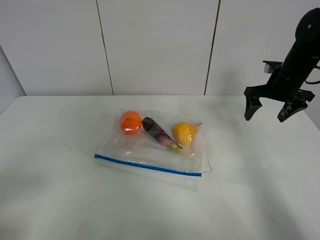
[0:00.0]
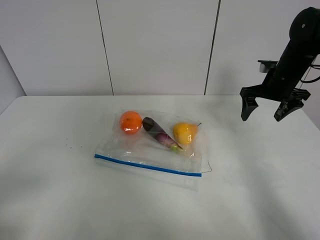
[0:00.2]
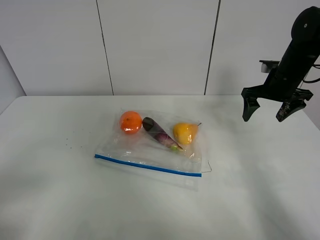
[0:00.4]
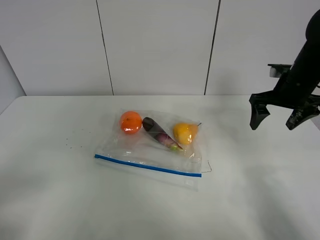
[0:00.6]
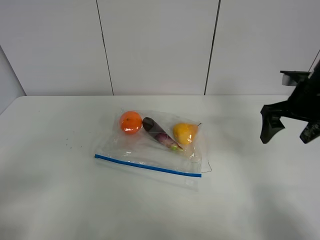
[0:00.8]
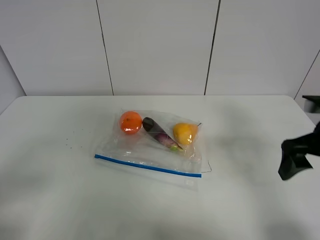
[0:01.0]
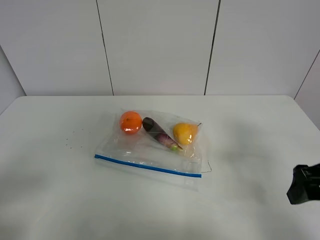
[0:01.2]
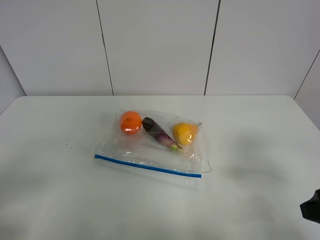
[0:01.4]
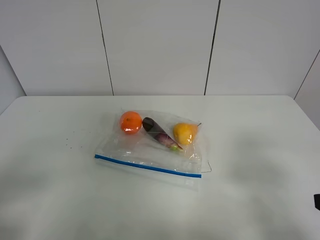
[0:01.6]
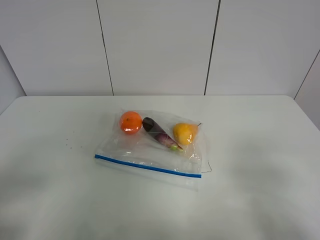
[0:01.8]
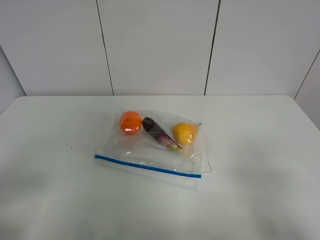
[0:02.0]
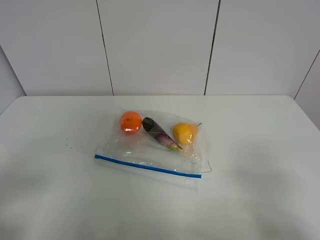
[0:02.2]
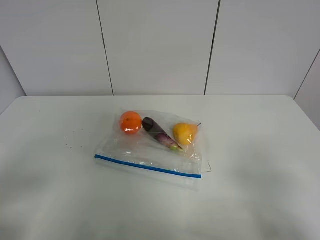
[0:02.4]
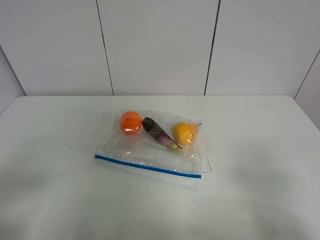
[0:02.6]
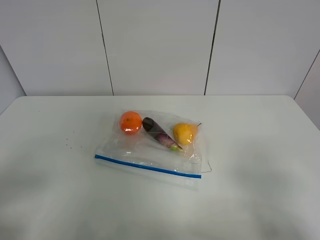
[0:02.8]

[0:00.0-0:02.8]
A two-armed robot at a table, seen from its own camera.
0:00.0 to 0:01.4: The right gripper moves backward, about 30 cm.
0:01.4 to 0:02.8: The right gripper is displaced backward by about 10 cm.

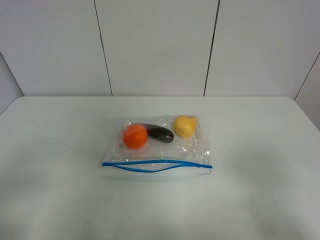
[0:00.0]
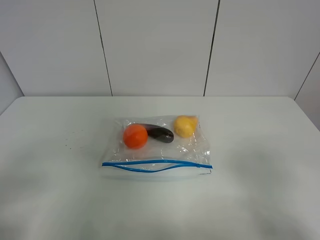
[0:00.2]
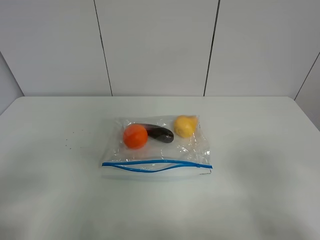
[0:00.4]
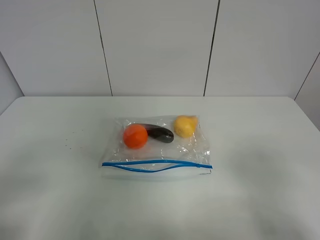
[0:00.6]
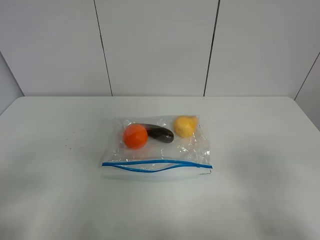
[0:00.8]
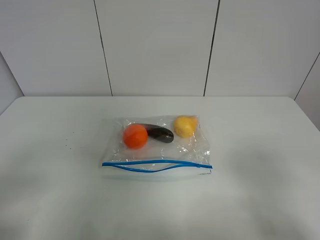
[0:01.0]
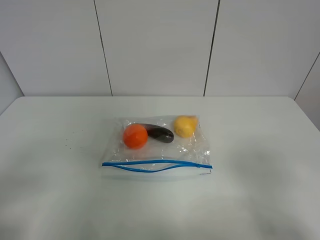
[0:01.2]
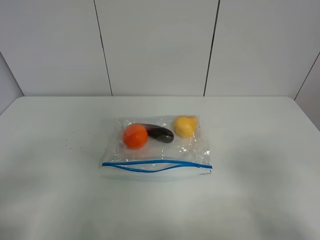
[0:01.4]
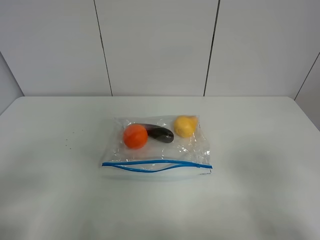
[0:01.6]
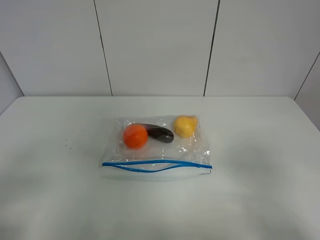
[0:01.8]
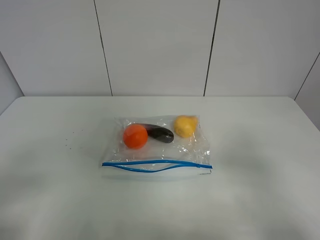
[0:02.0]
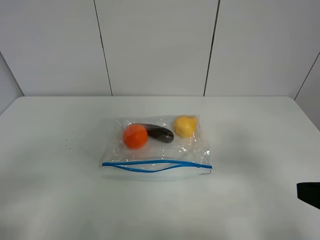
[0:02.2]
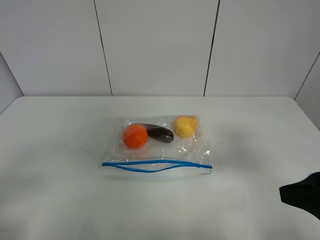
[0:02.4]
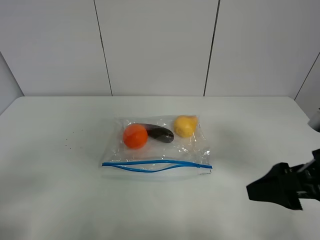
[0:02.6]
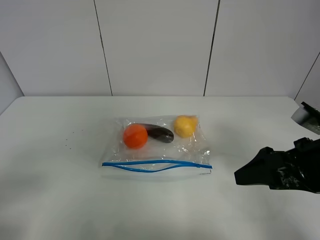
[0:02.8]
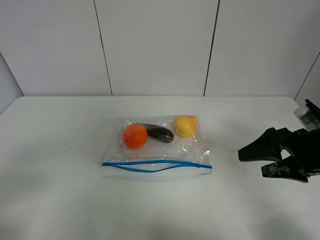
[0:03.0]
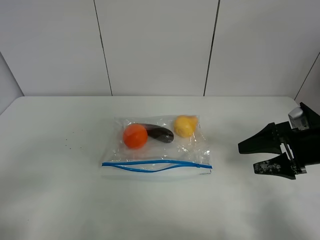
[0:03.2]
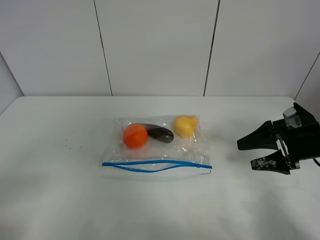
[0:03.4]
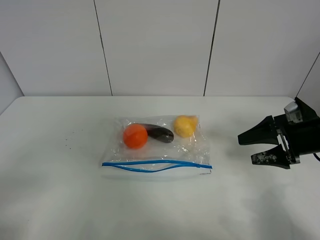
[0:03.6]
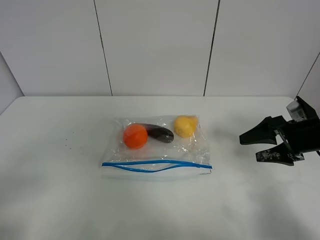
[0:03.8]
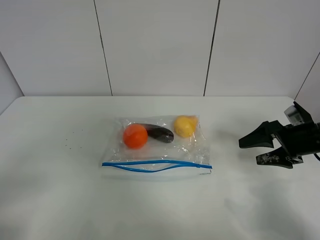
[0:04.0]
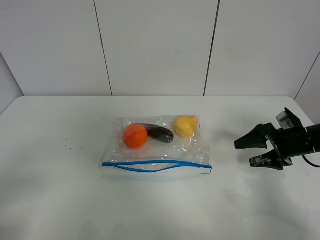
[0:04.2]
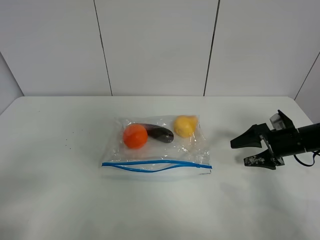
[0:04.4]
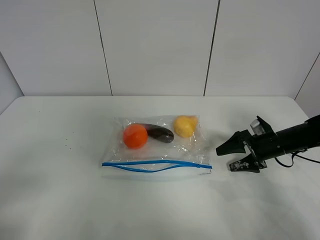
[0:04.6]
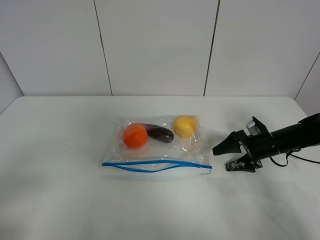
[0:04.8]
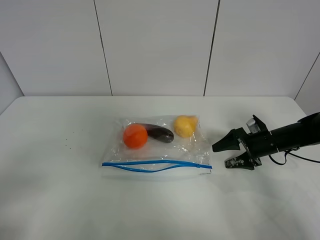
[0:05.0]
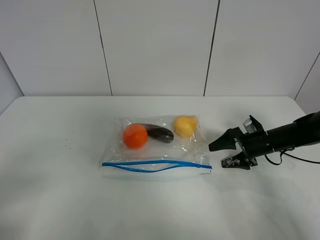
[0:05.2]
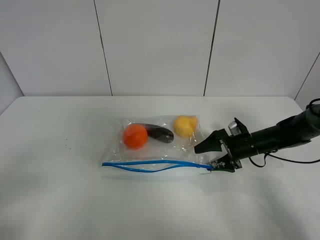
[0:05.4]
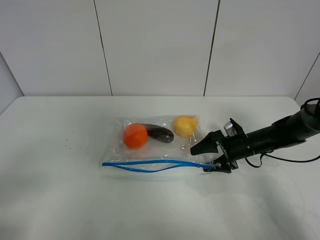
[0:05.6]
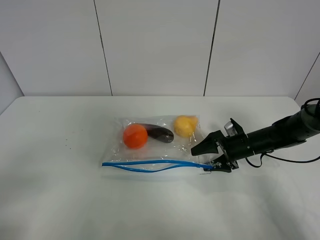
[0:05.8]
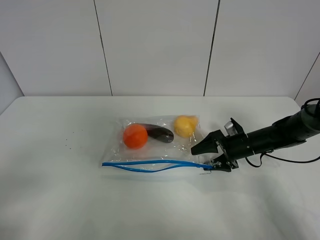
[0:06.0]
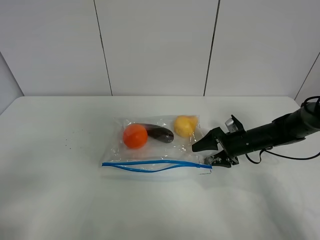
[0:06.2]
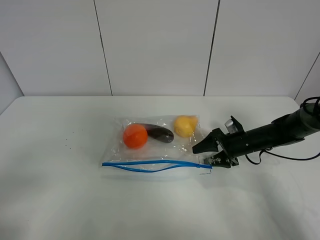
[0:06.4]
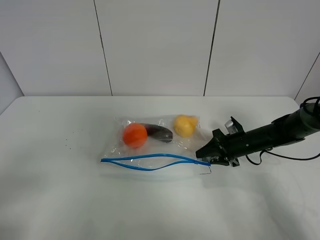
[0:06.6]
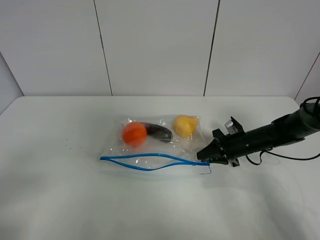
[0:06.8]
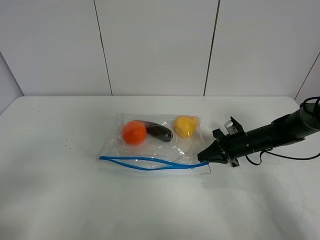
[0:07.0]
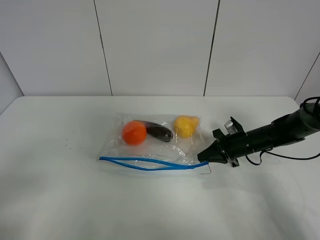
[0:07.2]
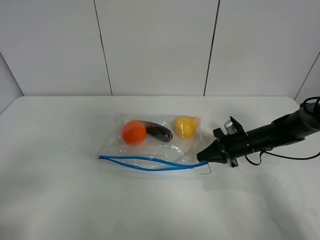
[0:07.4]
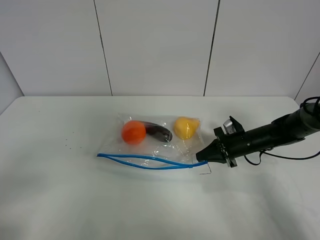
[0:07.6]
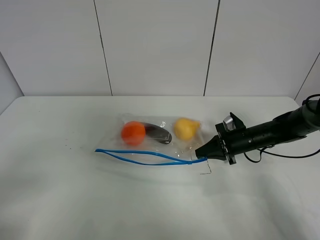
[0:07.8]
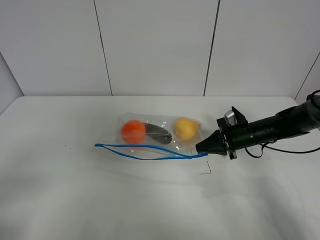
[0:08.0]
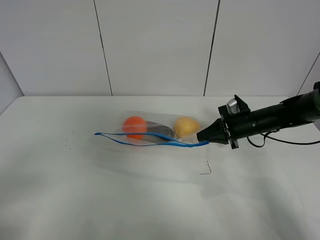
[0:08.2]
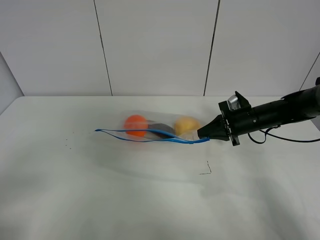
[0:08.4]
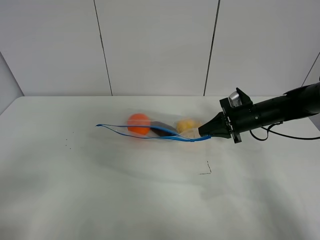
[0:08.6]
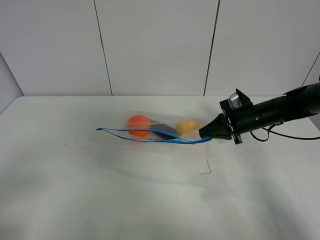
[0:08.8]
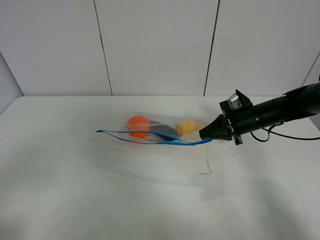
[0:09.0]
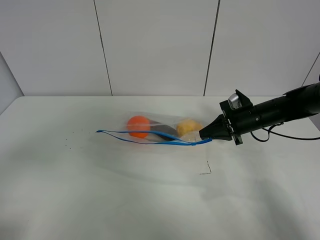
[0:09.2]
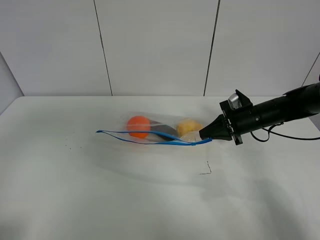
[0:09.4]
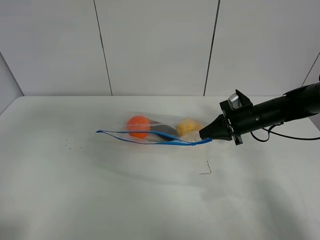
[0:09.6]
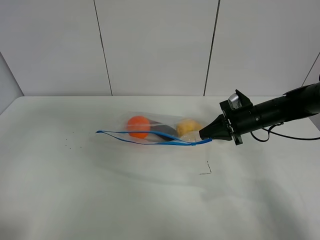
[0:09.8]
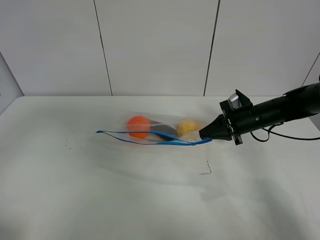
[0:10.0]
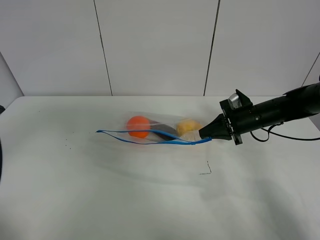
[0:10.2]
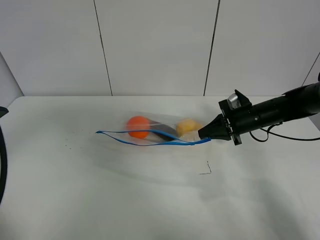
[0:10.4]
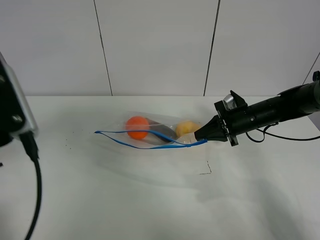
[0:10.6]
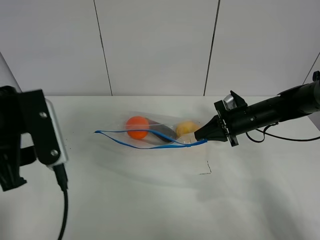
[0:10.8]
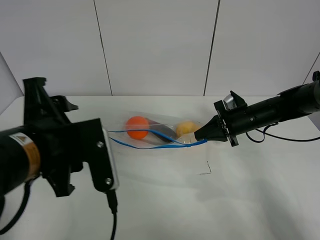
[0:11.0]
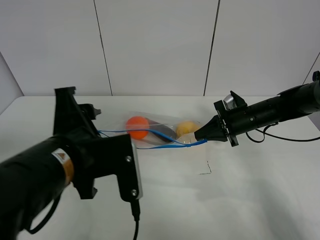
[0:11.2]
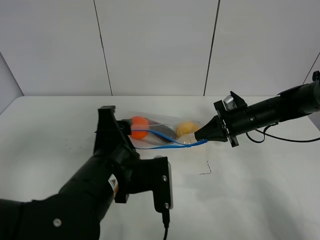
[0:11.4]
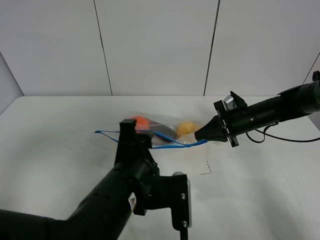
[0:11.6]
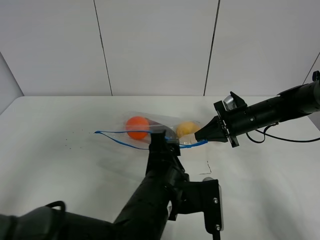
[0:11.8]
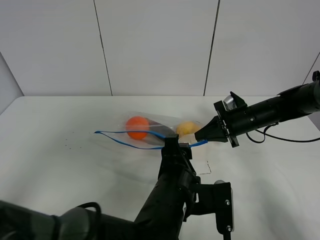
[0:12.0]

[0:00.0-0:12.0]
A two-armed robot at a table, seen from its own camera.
Step, 0:00.0 to 0:07.0: Grasp the fruit bag with right gripper.
Step, 0:07.2 to 0:08.8: Lift the fruit bag with your right gripper.
0:00.0 to 0:01.6: Both grippers stay about where they are.
0:01.6 to 0:03.0: The right gripper heads forward, covering approximately 20 cm.
0:03.0 to 0:04.4: The right gripper travels downward and forward by some 15 cm.
0:04.4 to 0:06.0: The right gripper moves to the left, about 10 cm.
0:06.0 to 0:07.6: The right gripper closes.
0:07.6 to 0:09.0: The right gripper is displaced upward by roughly 5 cm.
0:09.0 to 0:10.4: The left gripper goes approximately 15 cm forward and upward.
0:10.4 to 0:12.0: The left gripper goes some 35 cm to the right and downward.

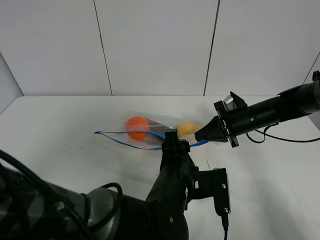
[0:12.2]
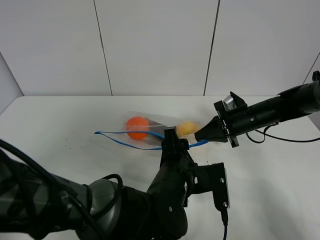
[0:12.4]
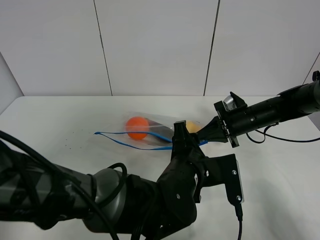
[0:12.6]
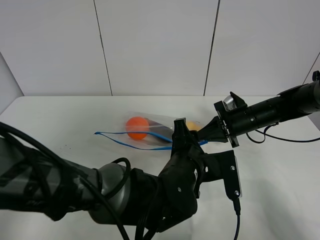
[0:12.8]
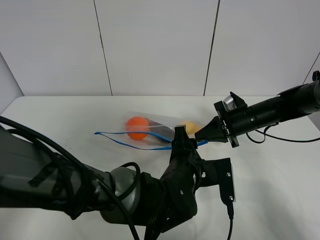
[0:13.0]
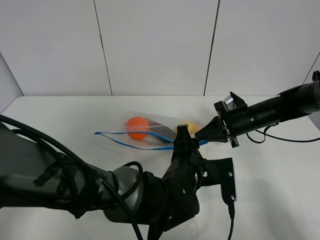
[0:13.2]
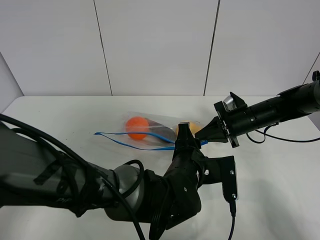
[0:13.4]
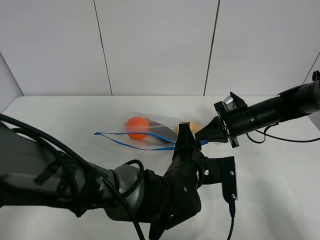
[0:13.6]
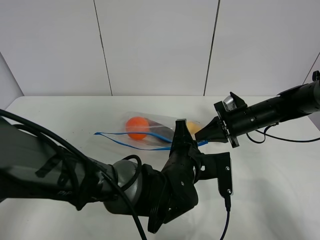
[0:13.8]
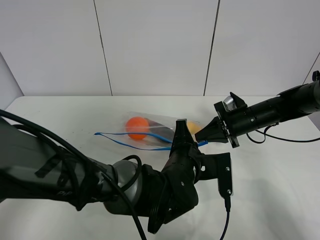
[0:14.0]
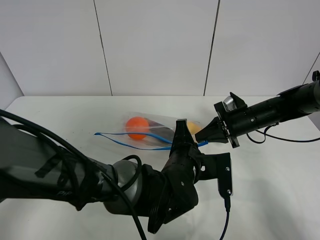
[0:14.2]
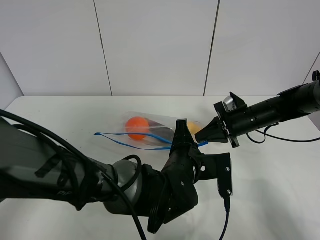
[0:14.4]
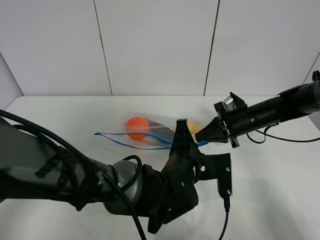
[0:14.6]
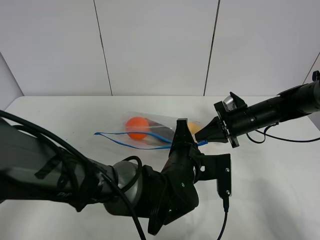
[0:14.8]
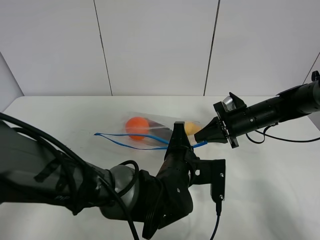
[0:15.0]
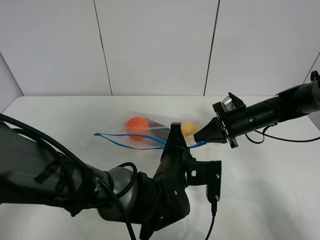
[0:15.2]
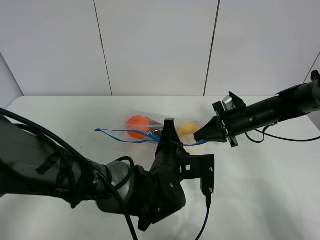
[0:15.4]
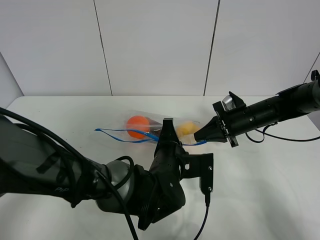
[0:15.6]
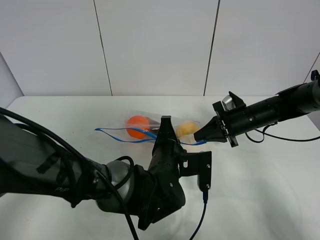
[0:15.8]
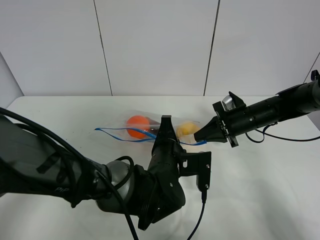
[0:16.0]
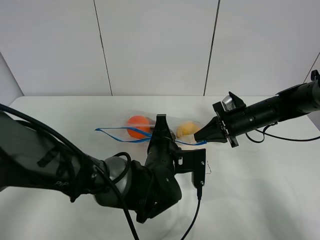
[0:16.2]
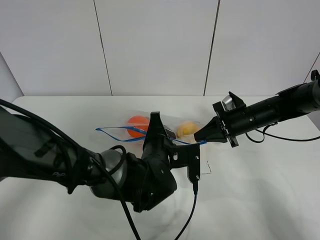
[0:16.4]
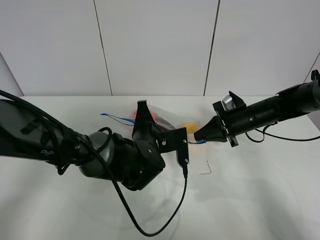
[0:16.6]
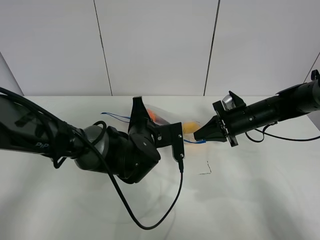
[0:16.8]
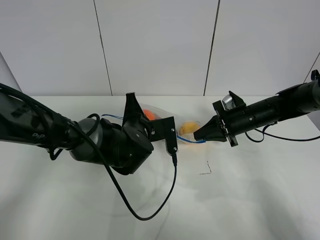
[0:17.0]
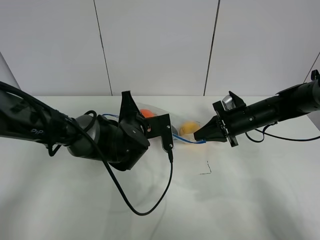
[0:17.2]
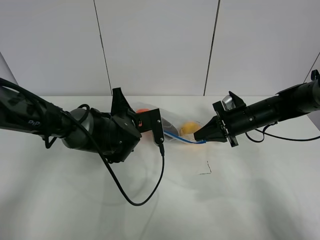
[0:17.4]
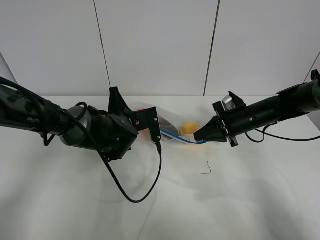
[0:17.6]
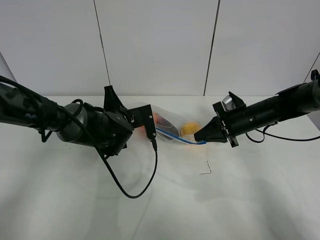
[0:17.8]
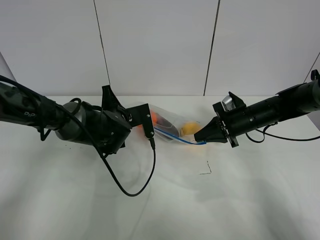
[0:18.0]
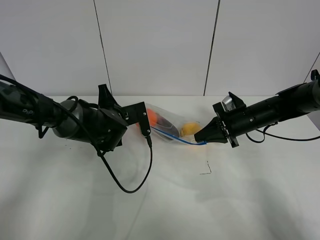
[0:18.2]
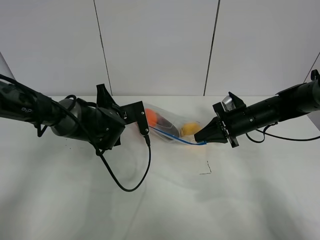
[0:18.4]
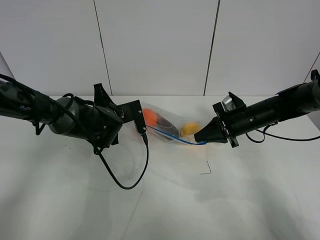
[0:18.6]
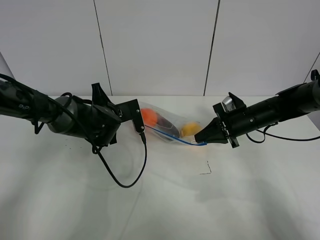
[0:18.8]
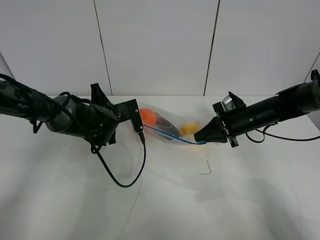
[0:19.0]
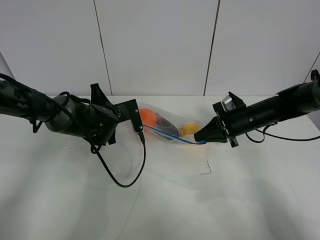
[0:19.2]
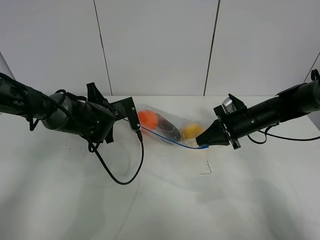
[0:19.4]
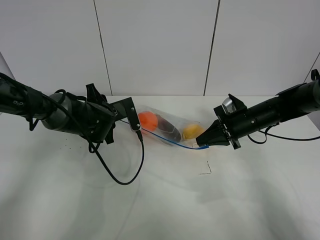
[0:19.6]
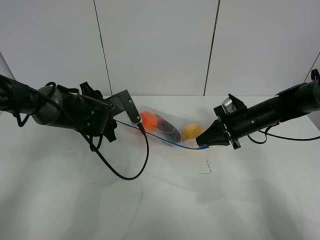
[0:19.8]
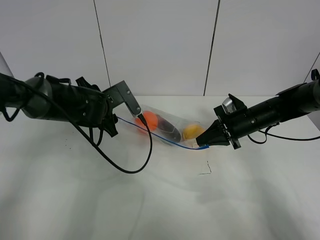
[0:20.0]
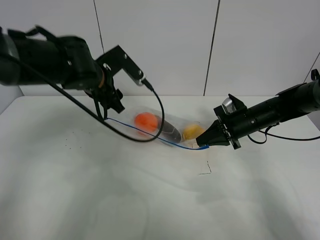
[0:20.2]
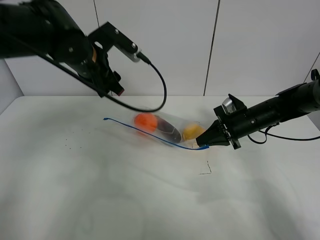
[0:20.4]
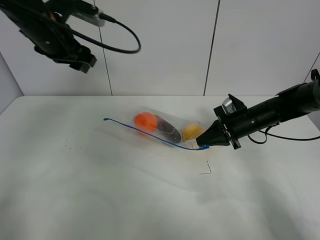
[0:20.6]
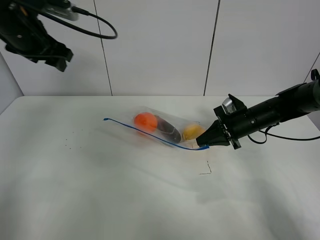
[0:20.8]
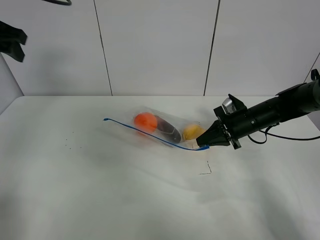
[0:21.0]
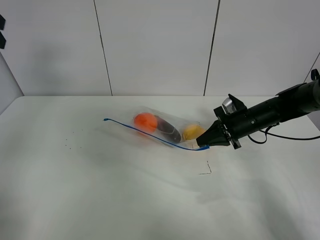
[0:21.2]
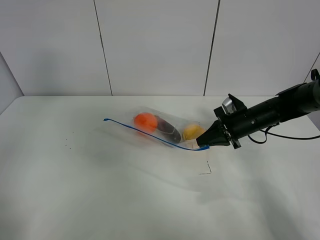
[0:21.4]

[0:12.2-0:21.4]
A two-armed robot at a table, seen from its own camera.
Step, 0:12.2 to 0:19.6: Pull the fruit bag with left gripper.
0:12.2 to 0:13.8: The left gripper closes its fingers.
0:13.8 to 0:15.2: The grippers move only a little.
0:15.2 to 0:16.8: The left gripper shifts some 10 cm forward and to the left.
0:16.8 to 0:18.4: The left gripper moves to the left and forward, approximately 10 cm.
0:18.4 to 0:19.8: The left gripper opens up.
0:19.8 to 0:21.4: The left gripper goes some 35 cm upward and to the left.
